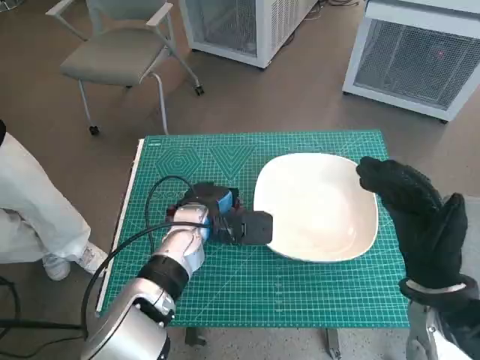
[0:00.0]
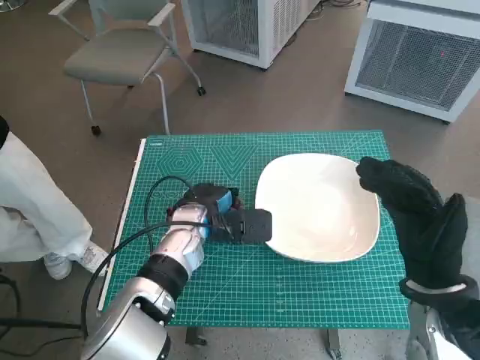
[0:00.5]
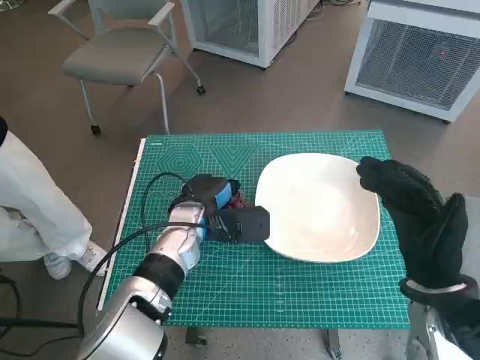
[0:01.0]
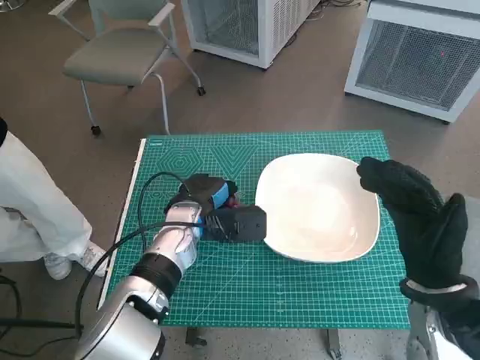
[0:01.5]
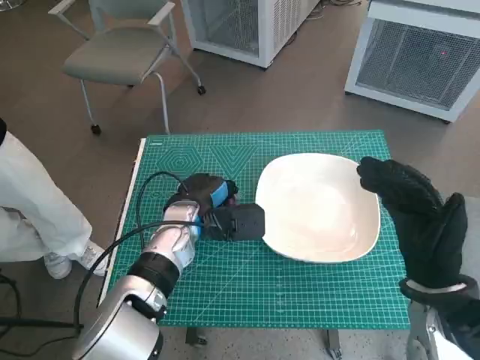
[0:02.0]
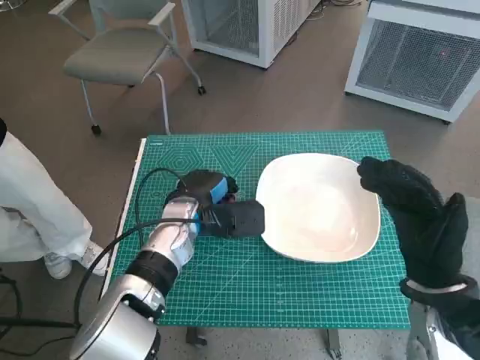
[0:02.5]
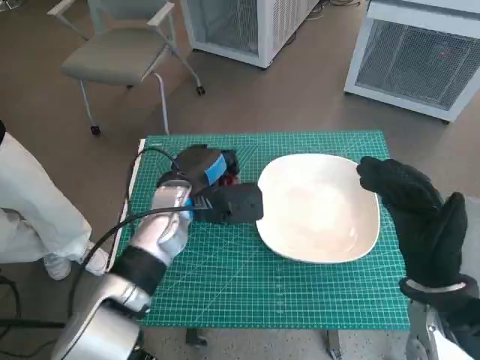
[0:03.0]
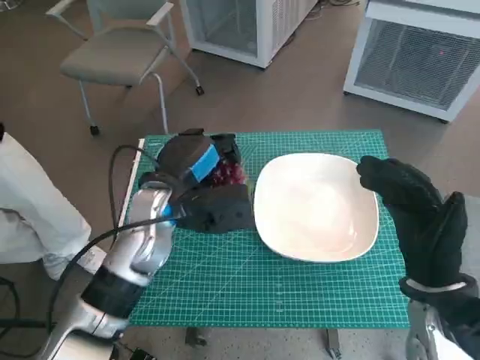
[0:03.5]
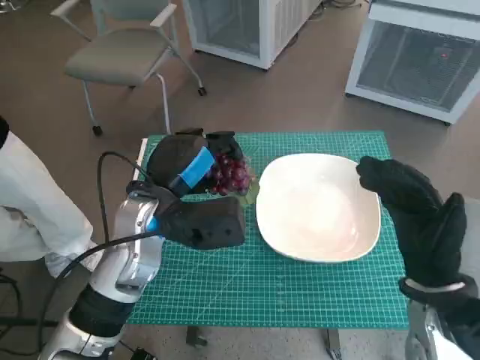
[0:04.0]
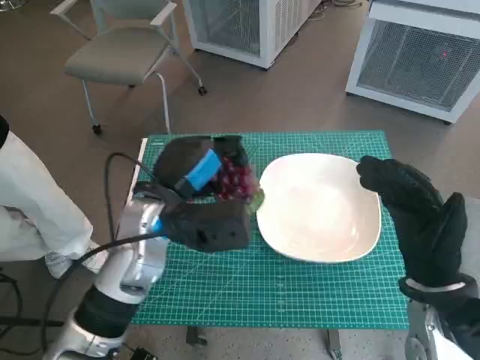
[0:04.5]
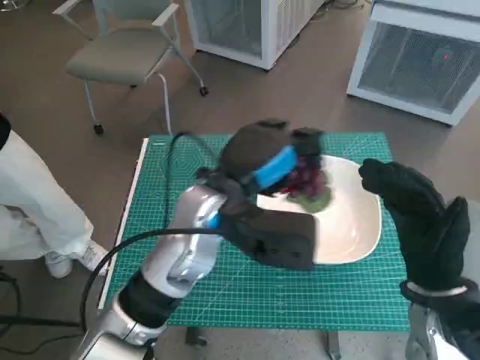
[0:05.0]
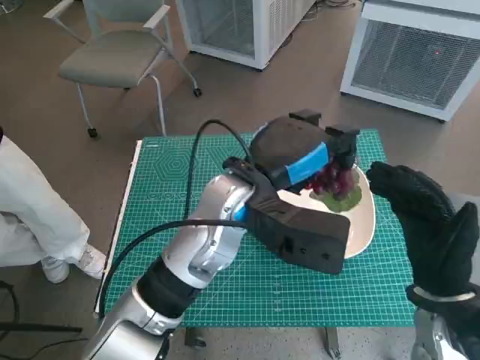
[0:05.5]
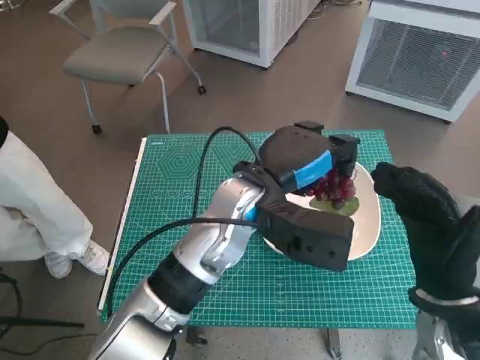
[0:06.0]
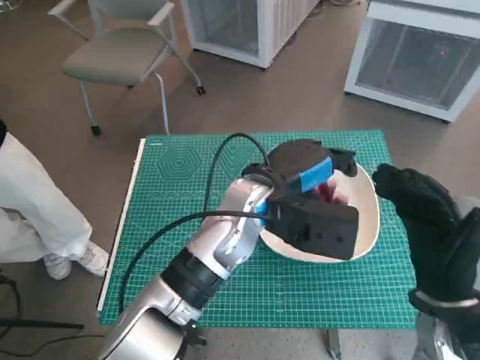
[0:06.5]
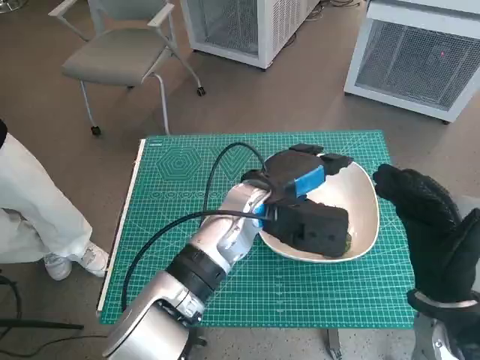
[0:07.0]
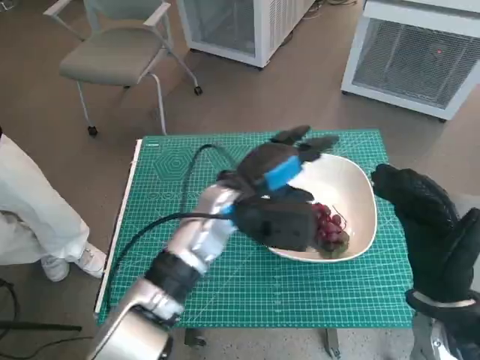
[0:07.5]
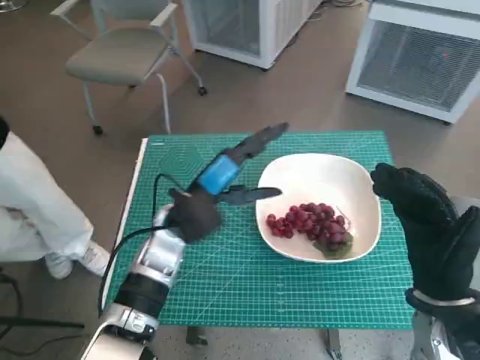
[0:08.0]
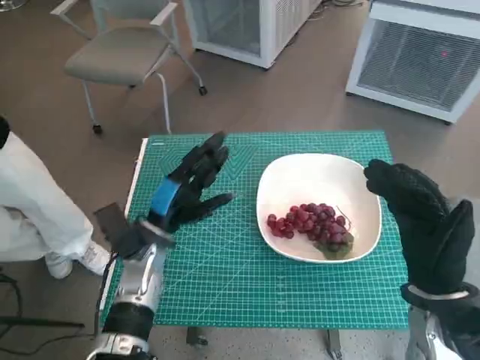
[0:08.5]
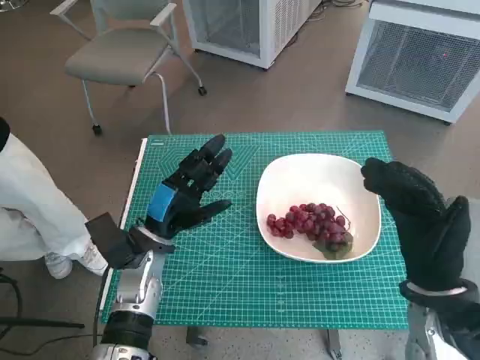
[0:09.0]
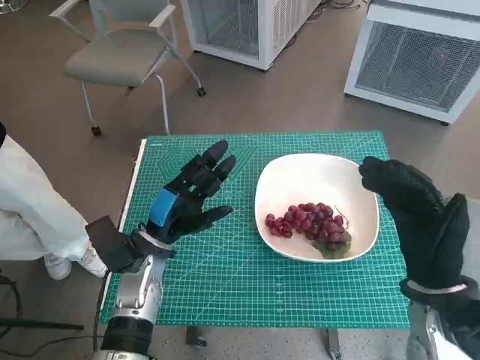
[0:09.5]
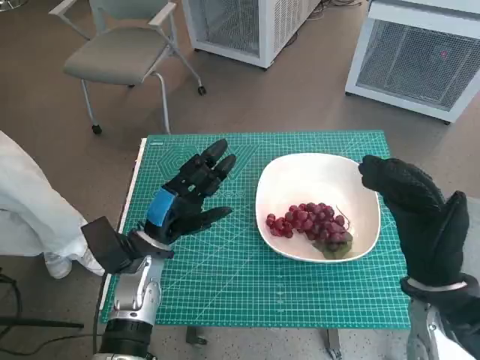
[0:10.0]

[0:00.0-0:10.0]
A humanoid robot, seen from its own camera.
Task of the whole recording: Pick up the grapes and put them on the plate.
Step, 0:02.0 to 0:06.5: Place the grapes in the plate with left hand.
0:00.0 to 0:02.0: The hands move only a little.
0:02.0 to 0:04.0: The left hand goes some 10 cm upward.
0:04.0 to 0:06.0: The left hand moves to the right, some 10 cm.
0:06.0 to 0:08.0: The left hand is displaced to the left and downward by roughly 10 cm.
0:08.0 to 0:10.0: The left hand is displaced to the left and downward by roughly 10 cm.

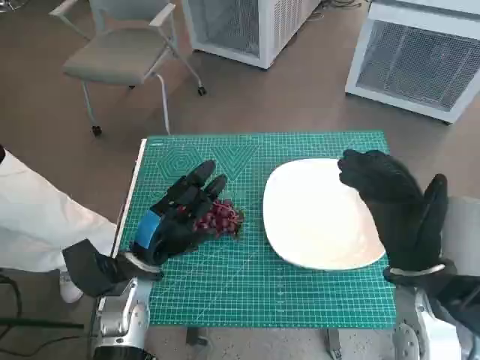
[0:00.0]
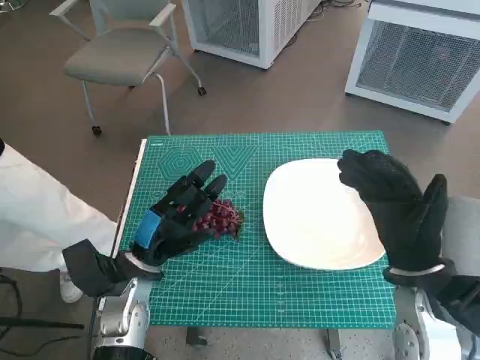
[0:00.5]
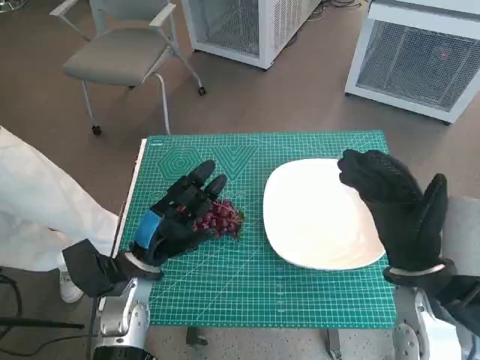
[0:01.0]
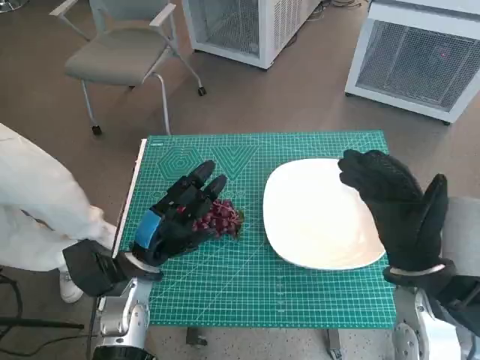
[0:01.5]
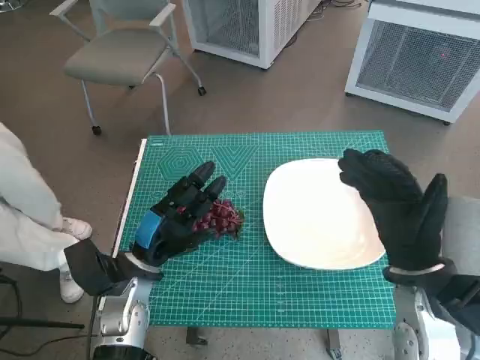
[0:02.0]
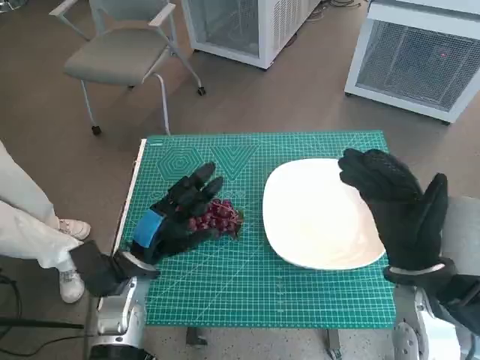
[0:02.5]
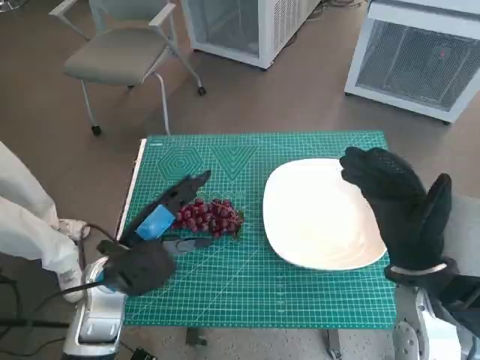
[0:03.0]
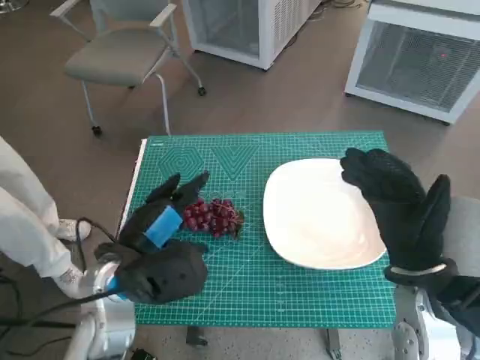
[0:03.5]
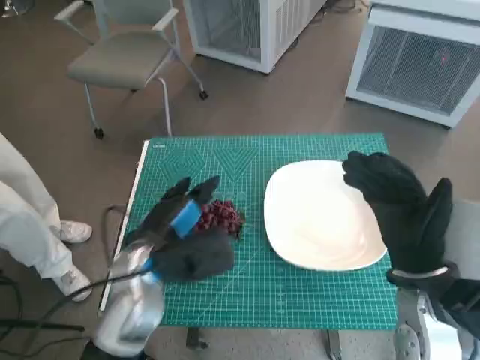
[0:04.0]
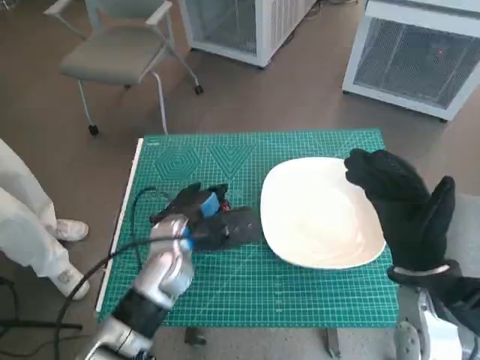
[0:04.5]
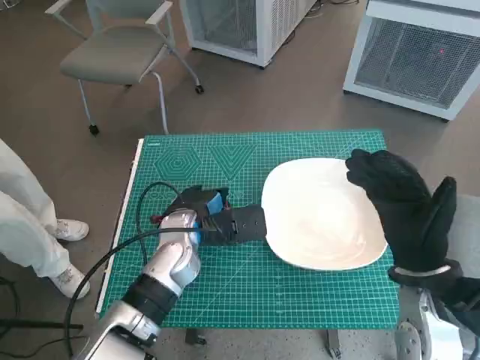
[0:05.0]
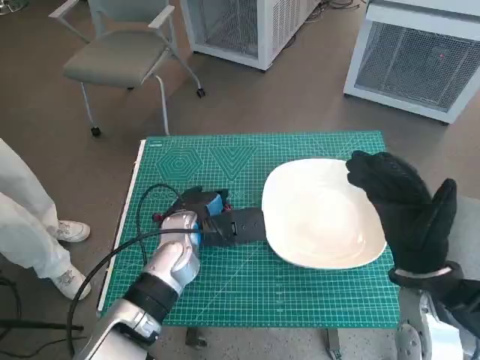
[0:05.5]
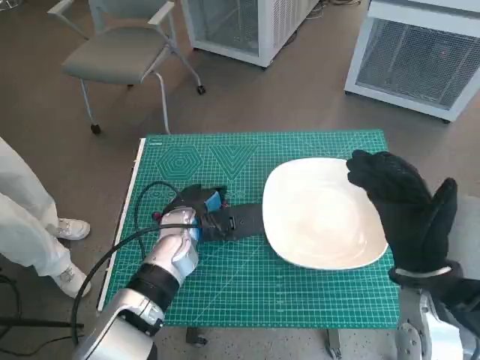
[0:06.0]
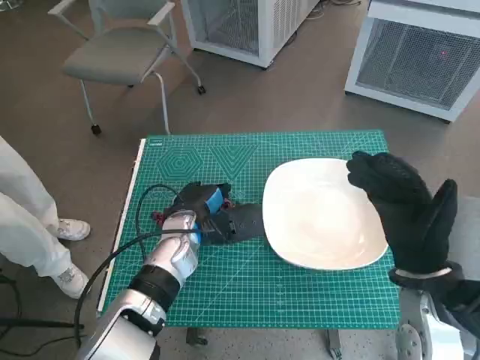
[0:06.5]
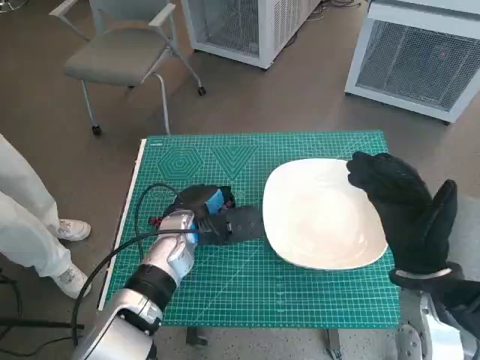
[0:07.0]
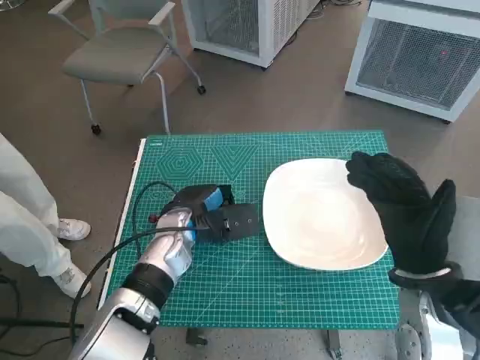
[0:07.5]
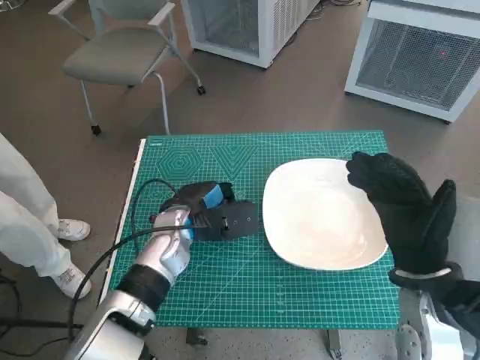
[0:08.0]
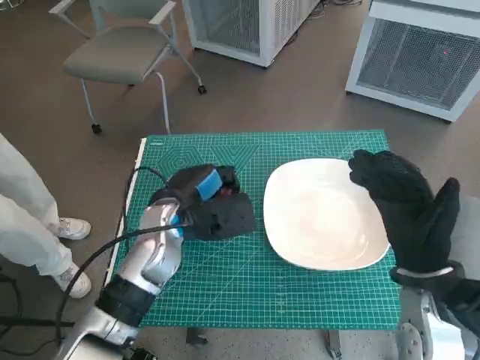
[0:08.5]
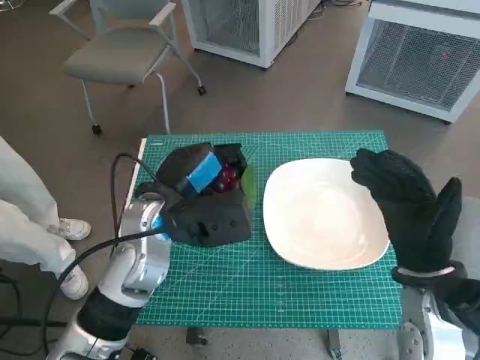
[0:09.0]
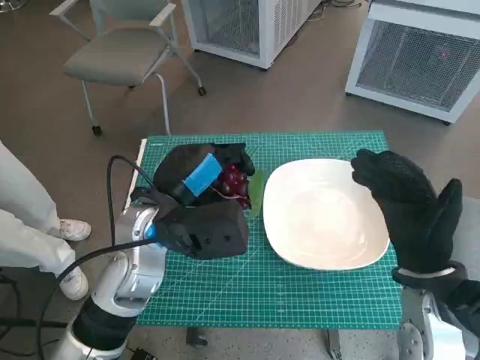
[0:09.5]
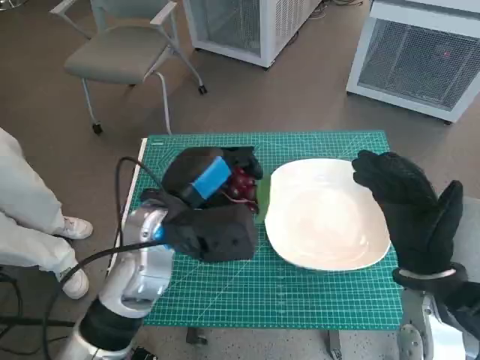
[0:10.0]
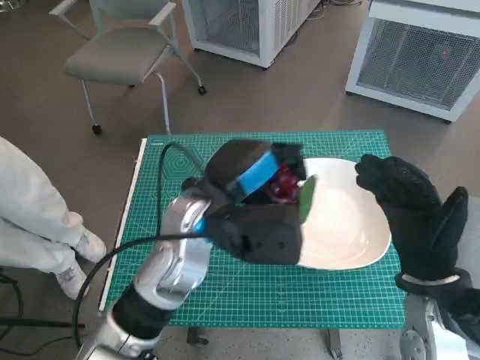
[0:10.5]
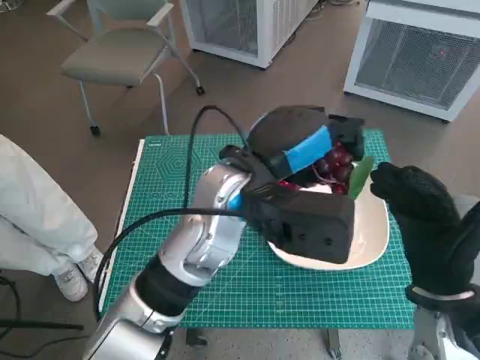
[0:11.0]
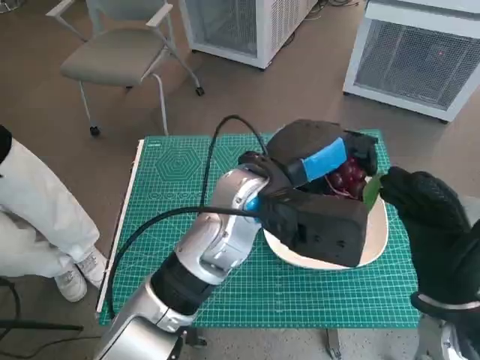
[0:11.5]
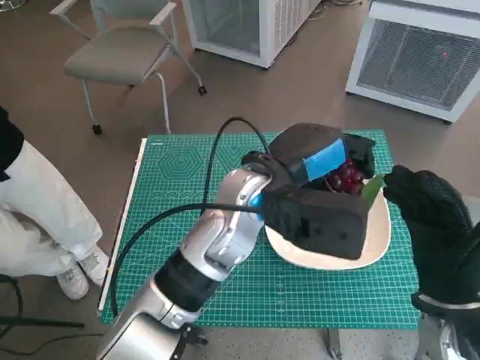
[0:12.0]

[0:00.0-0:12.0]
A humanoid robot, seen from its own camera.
Task of the whole recording: Pick up the grapes and put them on the plate.
Step, 0:00.0 to 0:07.5: Grasp the grapes with left hand.
0:02.0 to 0:04.0: The left hand travels upward by roughly 5 cm.
0:04.0 to 0:06.0: The left hand is displaced forward by some 10 cm.
0:06.0 to 0:08.0: The hands make only small movements.
0:08.0 to 0:10.0: The left hand travels upward and backward by about 10 cm.
0:10.0 to 0:12.0: The left hand is displaced to the right by about 10 cm.

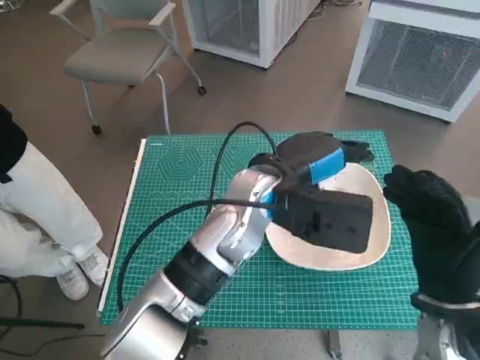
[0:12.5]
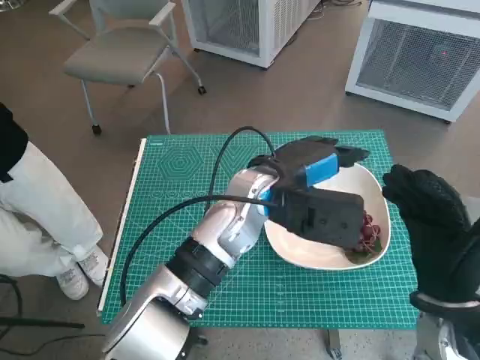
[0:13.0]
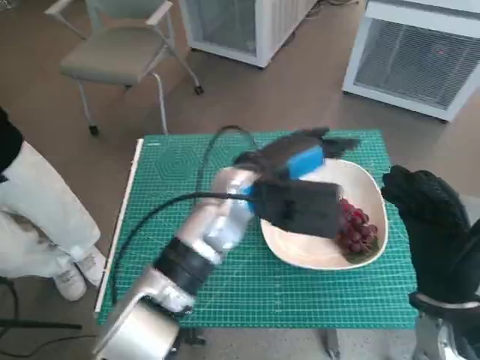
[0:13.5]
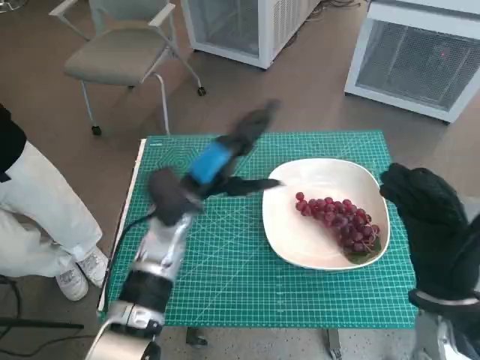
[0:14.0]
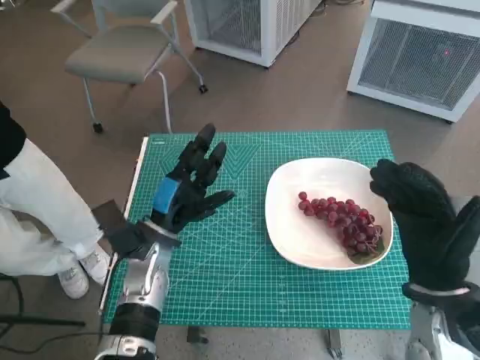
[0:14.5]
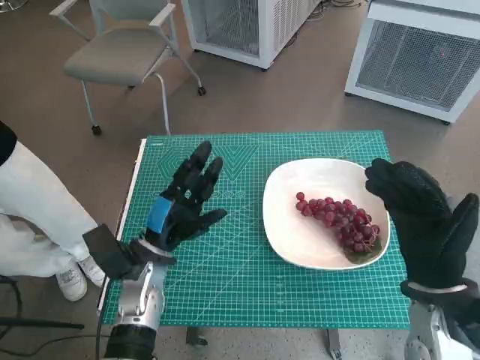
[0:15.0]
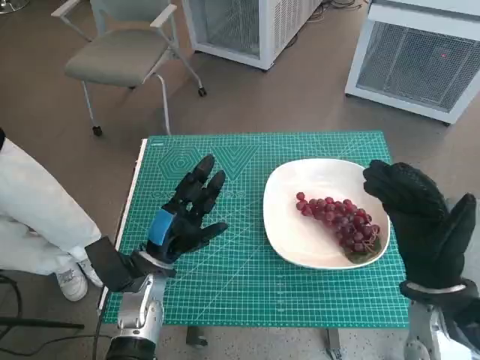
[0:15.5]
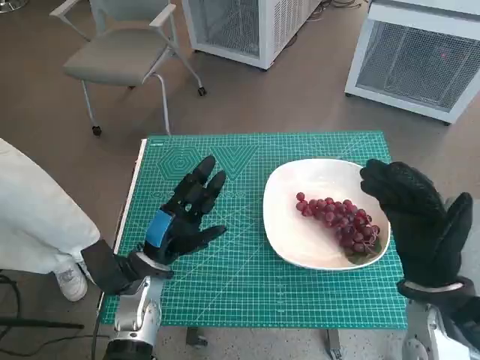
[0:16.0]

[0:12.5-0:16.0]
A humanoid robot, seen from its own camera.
Task of the whole recording: Pick up the grapes and put them on the plate.
0:12.5 to 0:14.5: The left hand heads to the left and downward, covering some 20 cm.
0:14.5 to 0:16.0: The hands move only a little.
